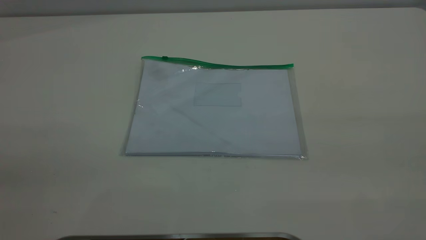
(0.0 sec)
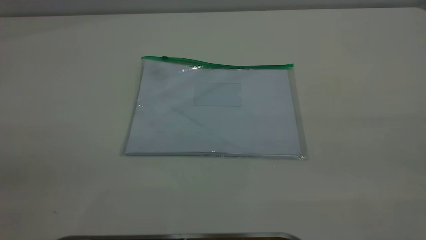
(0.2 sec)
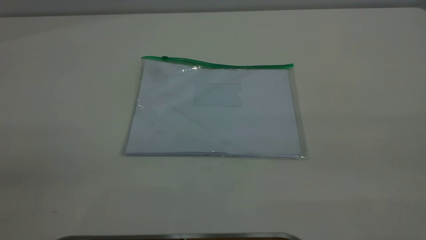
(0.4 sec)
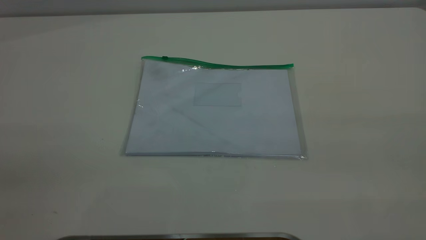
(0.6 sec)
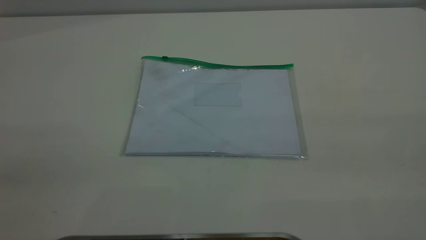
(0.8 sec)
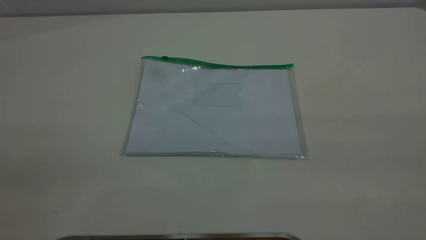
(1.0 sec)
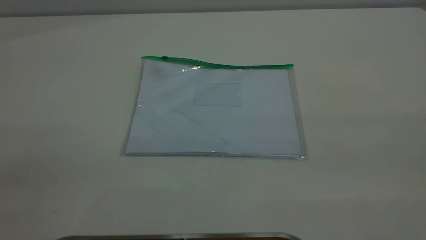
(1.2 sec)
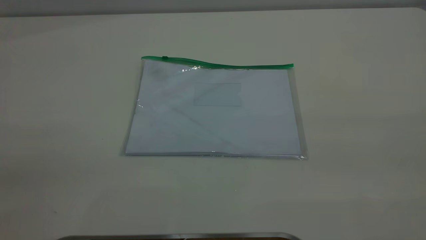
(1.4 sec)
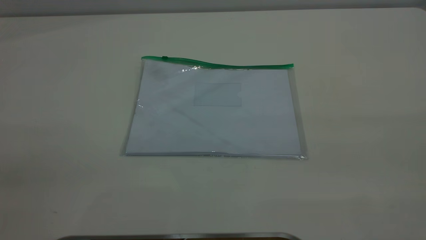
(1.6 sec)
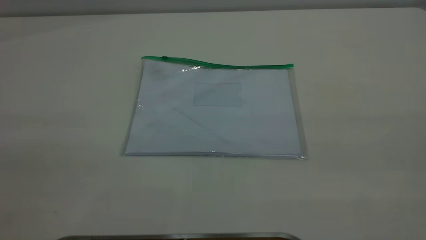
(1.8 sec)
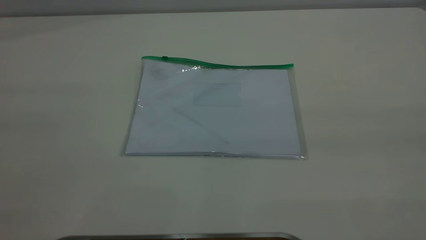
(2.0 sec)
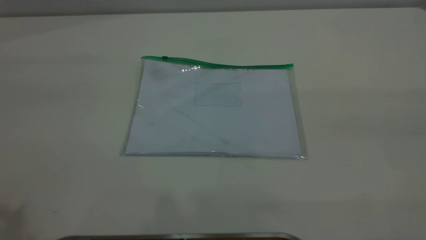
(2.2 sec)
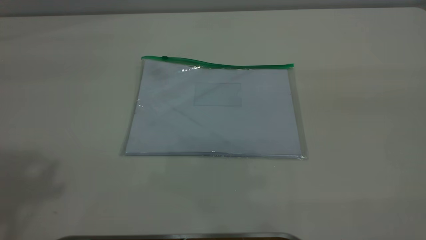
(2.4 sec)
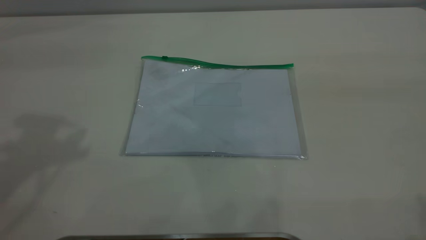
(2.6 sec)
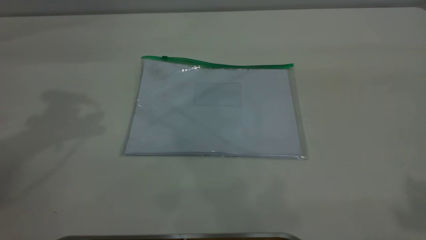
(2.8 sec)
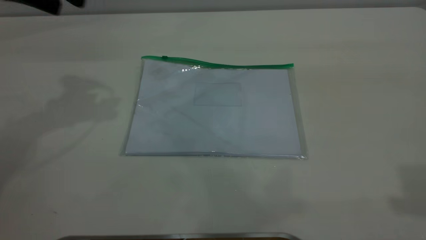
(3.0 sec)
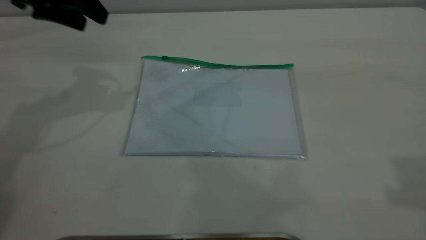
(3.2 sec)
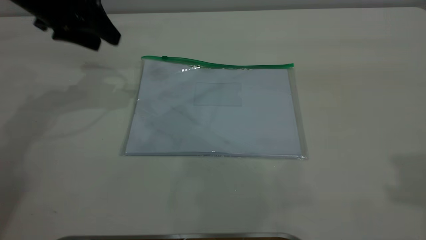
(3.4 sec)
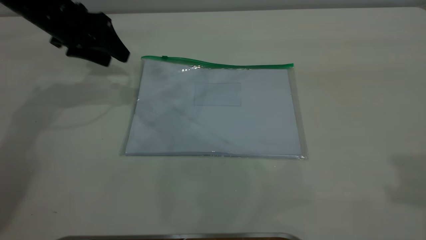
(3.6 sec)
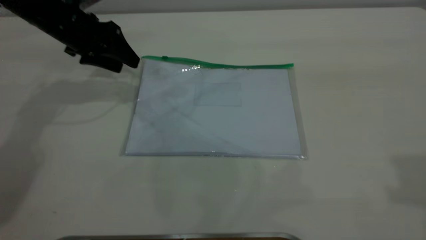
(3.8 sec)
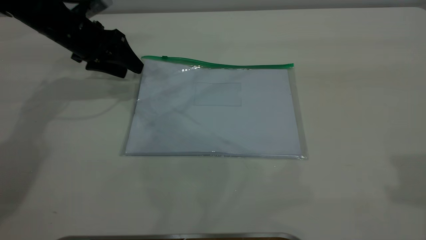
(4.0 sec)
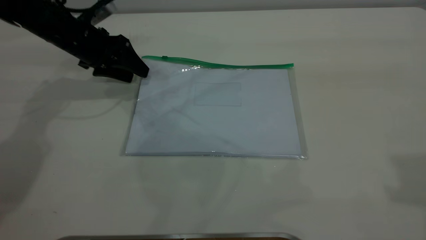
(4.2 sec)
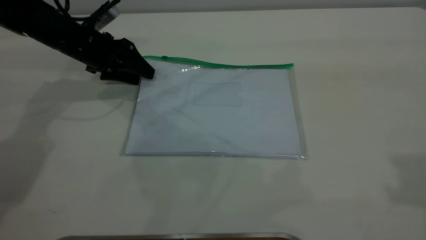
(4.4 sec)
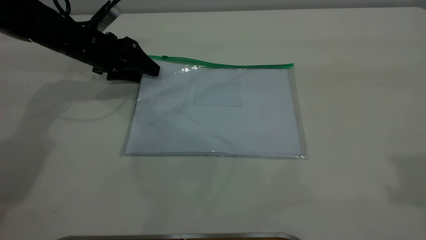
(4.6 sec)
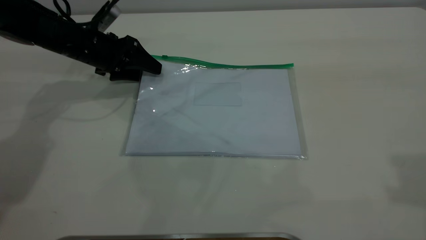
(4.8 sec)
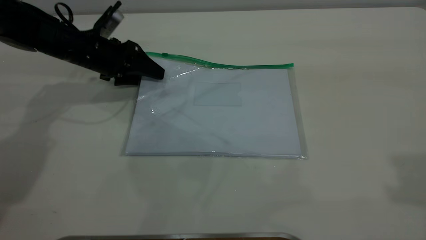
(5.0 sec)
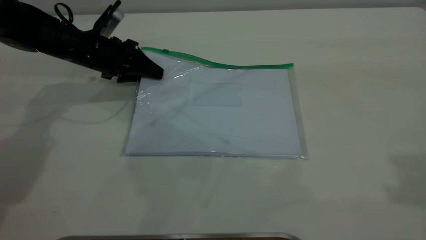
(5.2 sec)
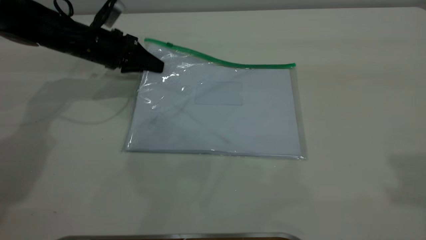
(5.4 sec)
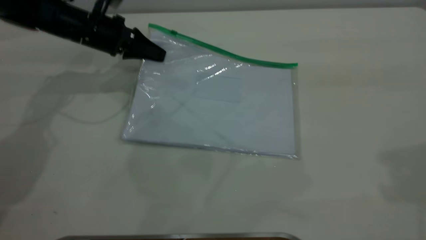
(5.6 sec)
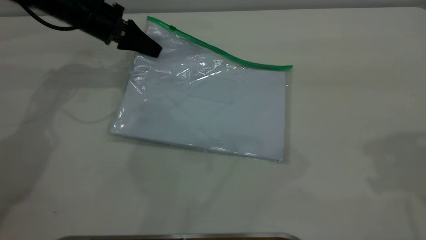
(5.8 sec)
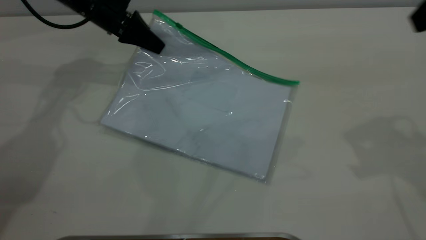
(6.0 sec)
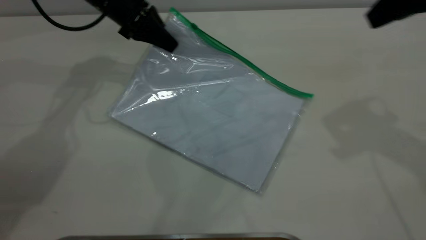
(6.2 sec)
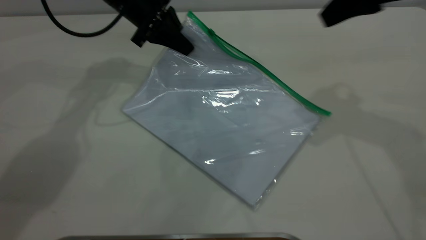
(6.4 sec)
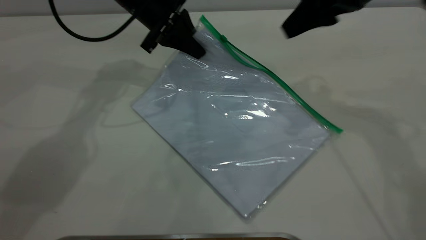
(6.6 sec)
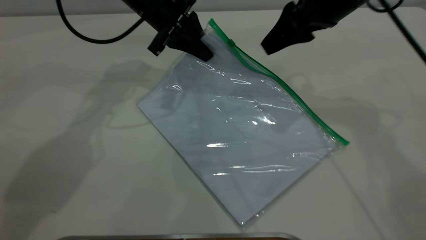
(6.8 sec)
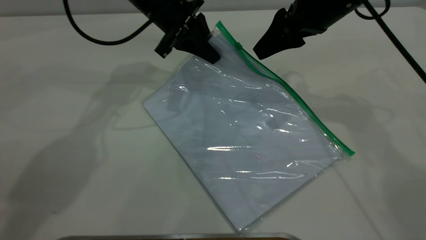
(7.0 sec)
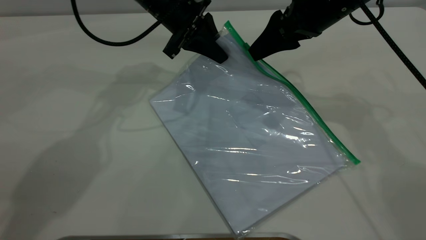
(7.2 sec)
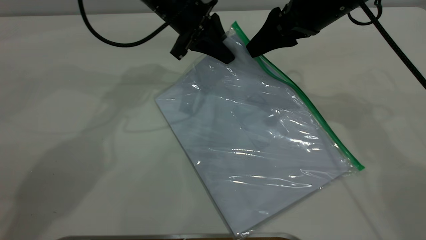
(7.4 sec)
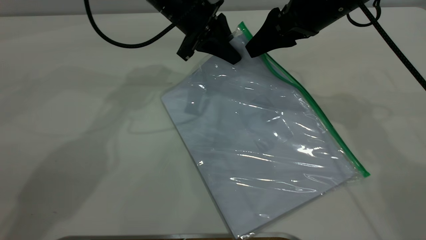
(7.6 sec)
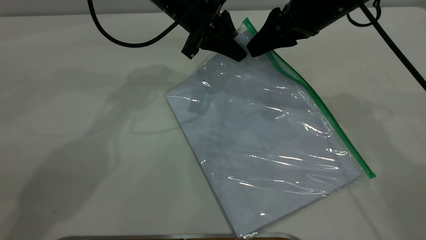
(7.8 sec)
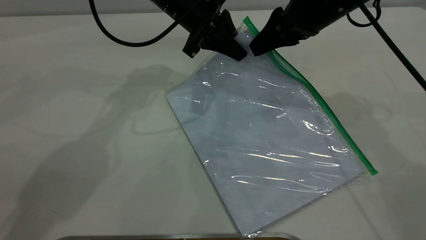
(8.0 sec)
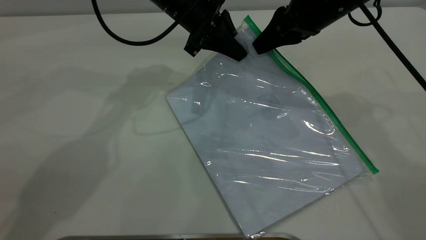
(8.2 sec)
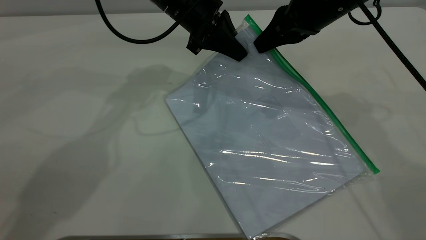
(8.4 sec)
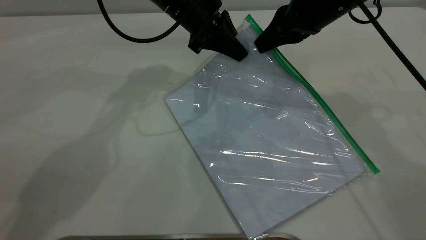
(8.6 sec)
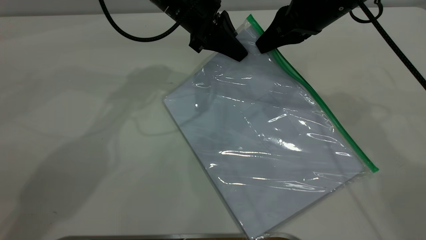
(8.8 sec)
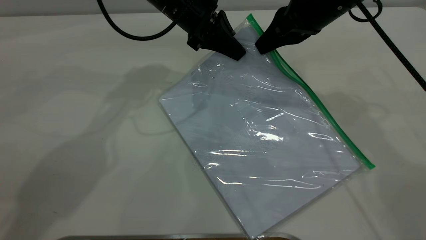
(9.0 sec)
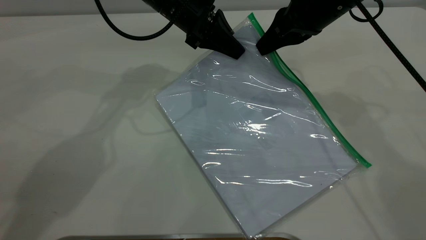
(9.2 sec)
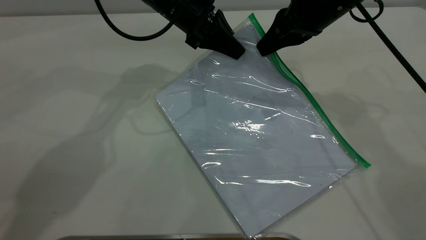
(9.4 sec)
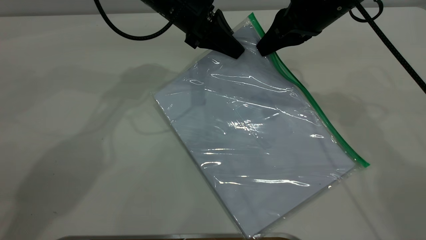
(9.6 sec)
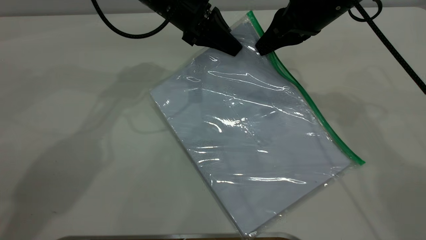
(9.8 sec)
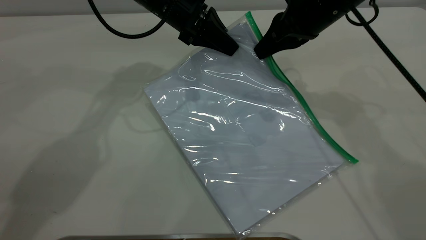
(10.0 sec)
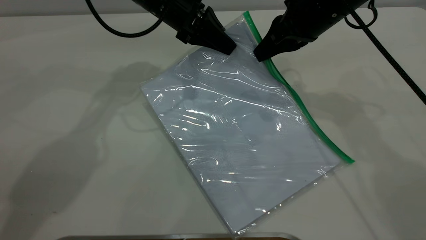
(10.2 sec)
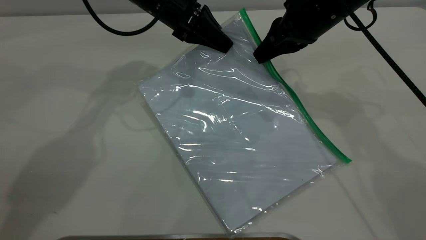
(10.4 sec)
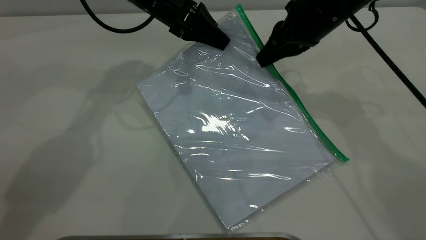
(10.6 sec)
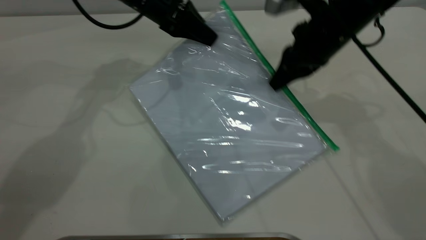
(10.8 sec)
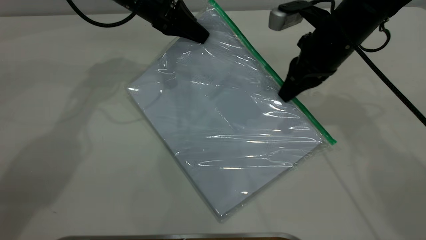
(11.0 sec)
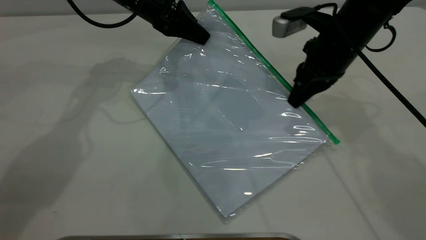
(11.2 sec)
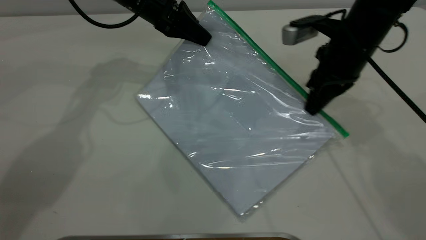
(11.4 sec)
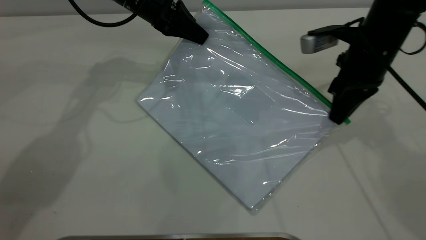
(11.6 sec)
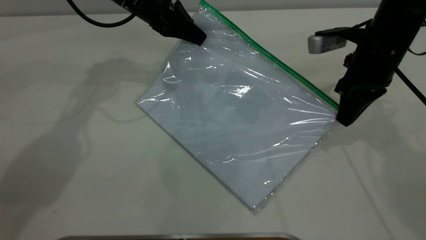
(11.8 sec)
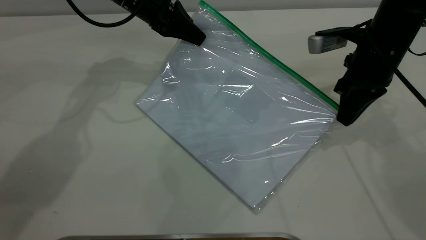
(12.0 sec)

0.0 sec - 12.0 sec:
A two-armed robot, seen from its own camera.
Step, 0.0 sec - 5.6 sec: Pick up the transparent plastic bag with the left gripper.
0.0 sec - 1.6 sec: Both grippers stay put.
3.0 sec - 4.4 sec: The left gripper goes some 20 cm downward.
4.4 sec - 6.0 sec: The right gripper shifts some 10 cm forward and downward; the left gripper goes approximately 5 cm upward, and closes up.
6.0 sec - 7.6 sec: The left gripper heads to the right, covering approximately 15 cm; the right gripper shifts approximately 20 cm forward, to the left and downward.
7.6 sec - 9.0 sec: The right gripper closes its fingers.
9.0 sec - 10.4 sec: The grippers make only small movements.
10.4 sec - 12.0 sec: The right gripper is displaced to the right by roughly 5 cm.

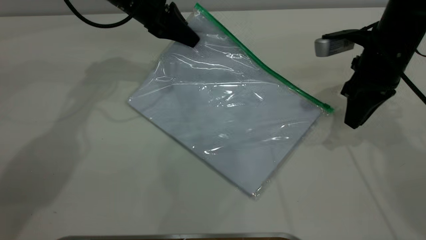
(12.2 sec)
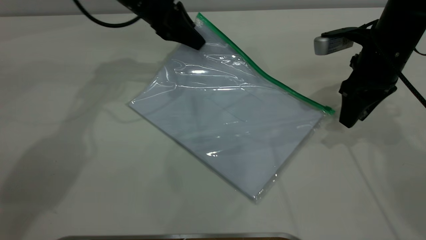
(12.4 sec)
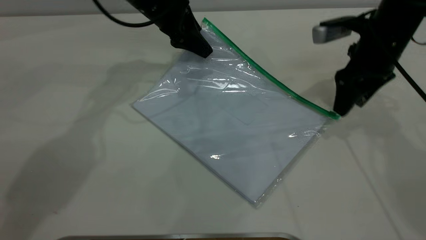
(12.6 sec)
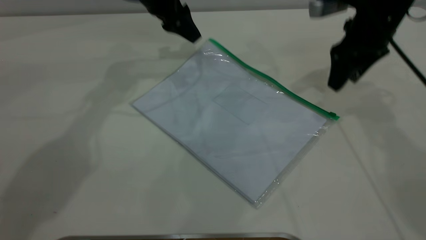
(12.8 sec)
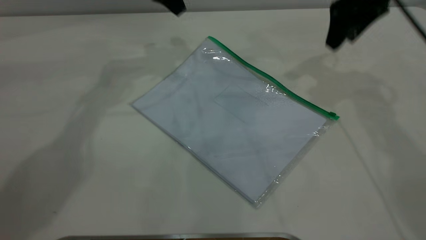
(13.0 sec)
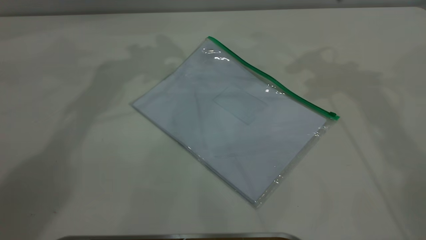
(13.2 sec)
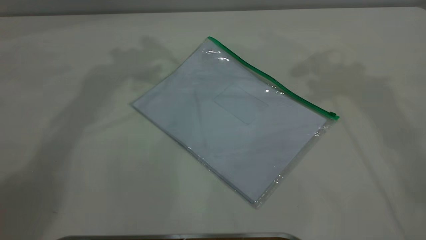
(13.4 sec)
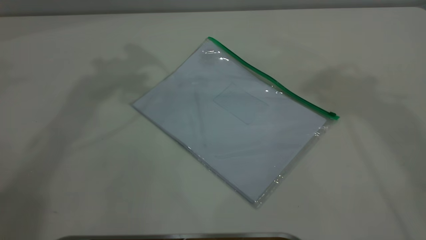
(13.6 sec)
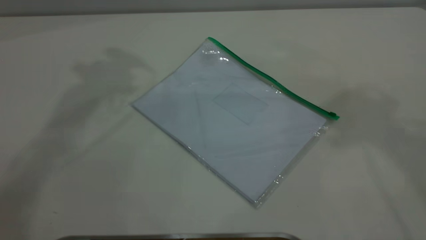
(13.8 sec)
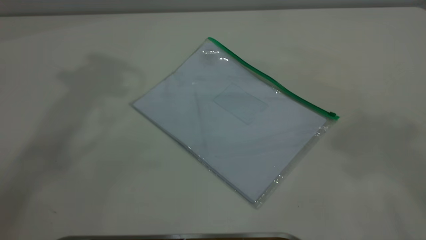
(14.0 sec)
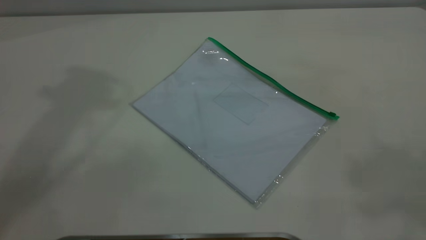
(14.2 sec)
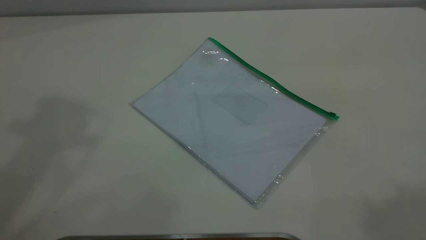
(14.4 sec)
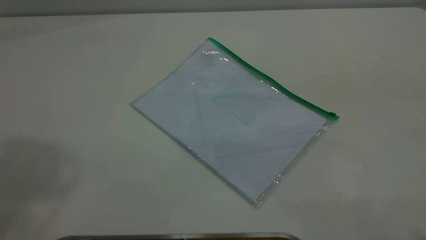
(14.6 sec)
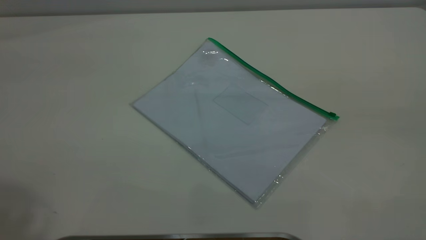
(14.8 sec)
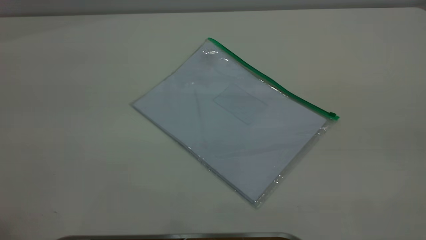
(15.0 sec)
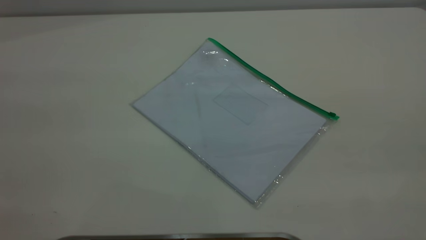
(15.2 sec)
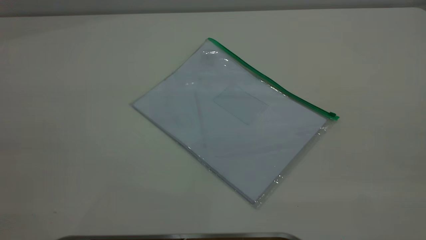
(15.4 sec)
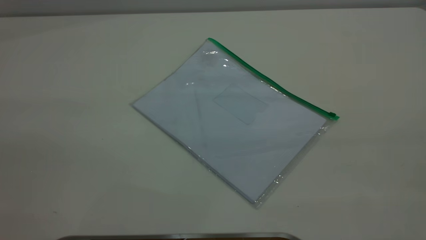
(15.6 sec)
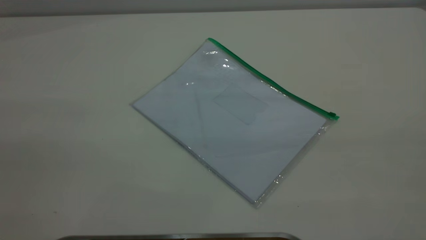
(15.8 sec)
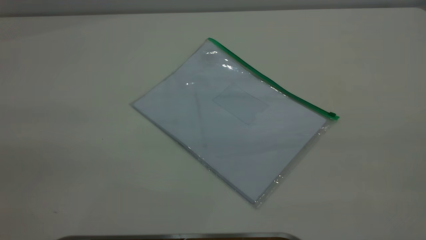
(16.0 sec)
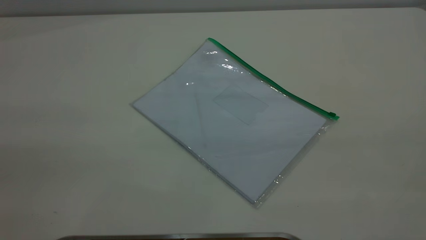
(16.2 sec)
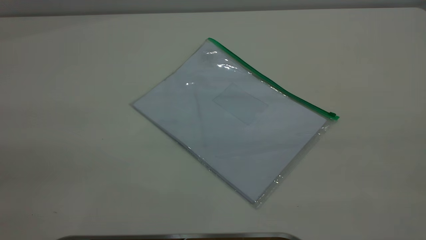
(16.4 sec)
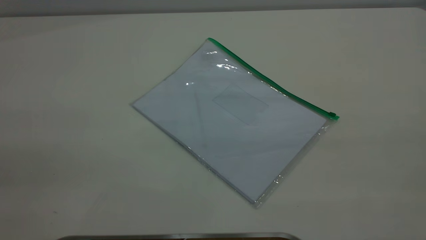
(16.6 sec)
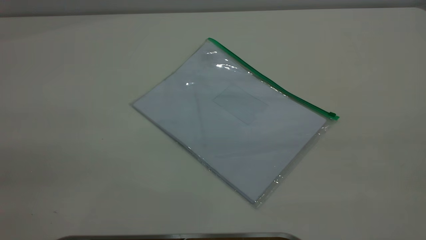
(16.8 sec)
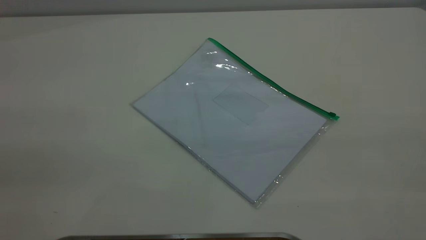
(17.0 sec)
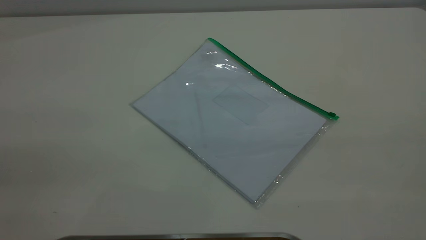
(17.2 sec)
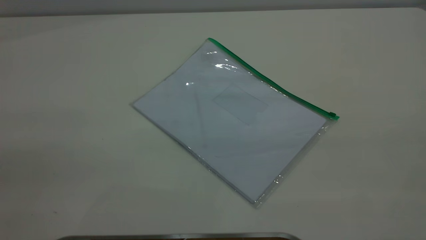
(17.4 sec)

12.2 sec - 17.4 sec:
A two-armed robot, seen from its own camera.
Step, 12.4 sec - 12.8 sec: Place the transparent plastic bag.
12.2 sec - 14.0 sec: The grippers both shift upward by approximately 40 cm. The right gripper opens; the left gripper opens its fingers.
